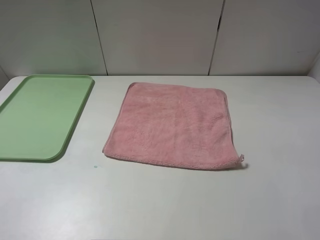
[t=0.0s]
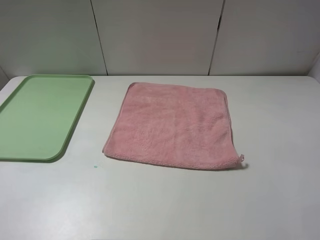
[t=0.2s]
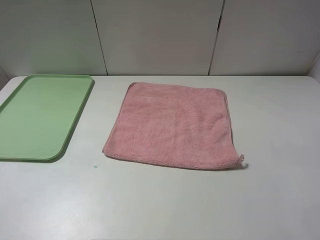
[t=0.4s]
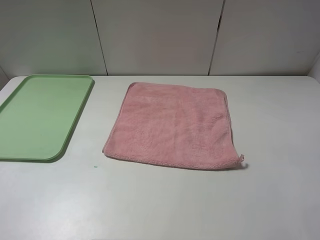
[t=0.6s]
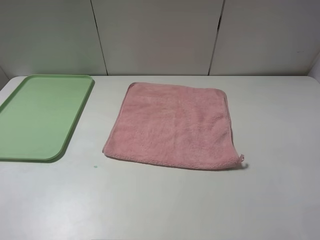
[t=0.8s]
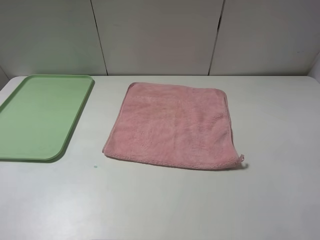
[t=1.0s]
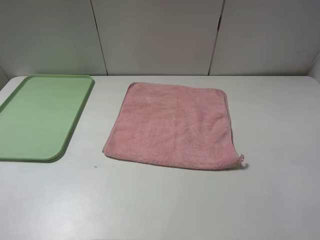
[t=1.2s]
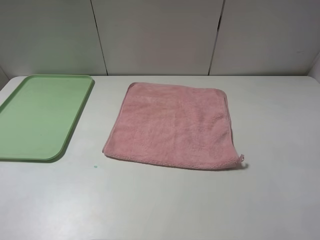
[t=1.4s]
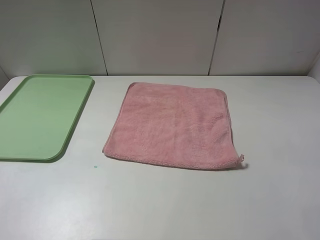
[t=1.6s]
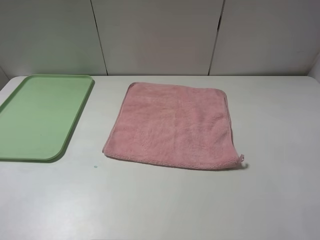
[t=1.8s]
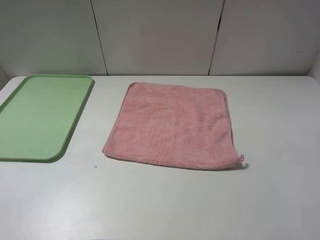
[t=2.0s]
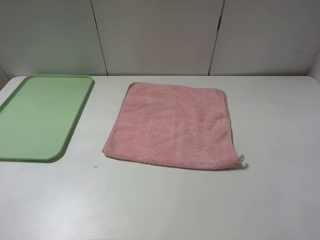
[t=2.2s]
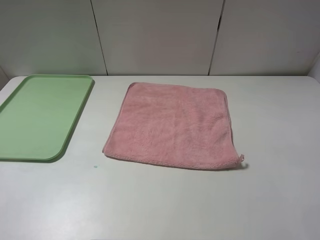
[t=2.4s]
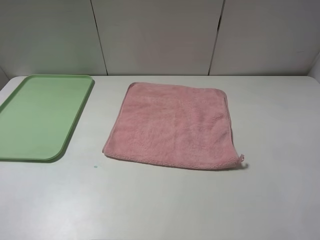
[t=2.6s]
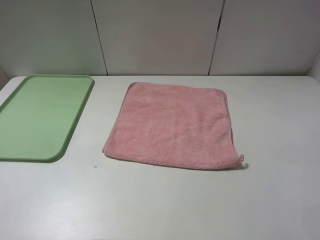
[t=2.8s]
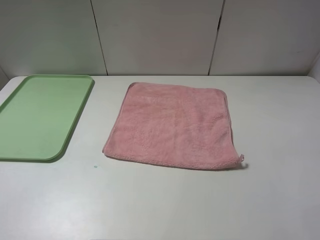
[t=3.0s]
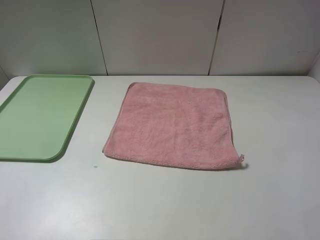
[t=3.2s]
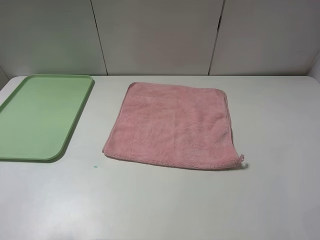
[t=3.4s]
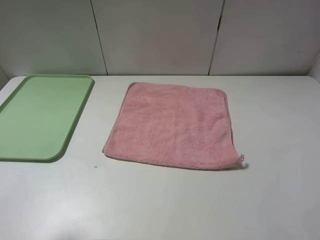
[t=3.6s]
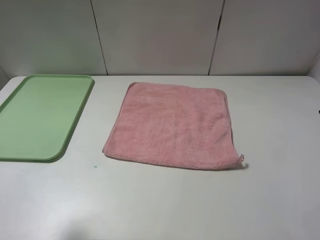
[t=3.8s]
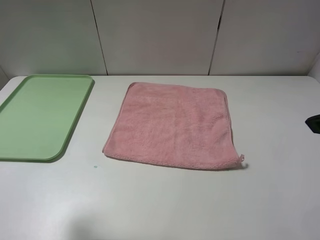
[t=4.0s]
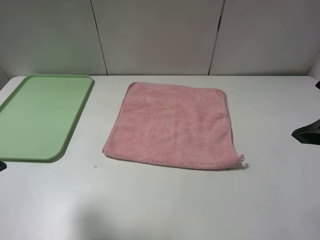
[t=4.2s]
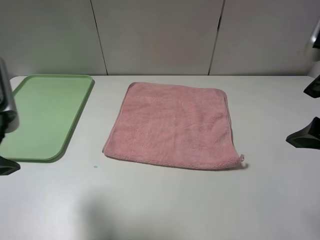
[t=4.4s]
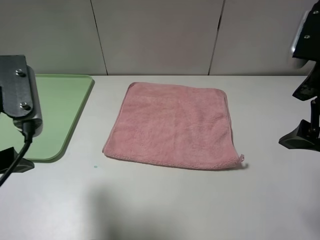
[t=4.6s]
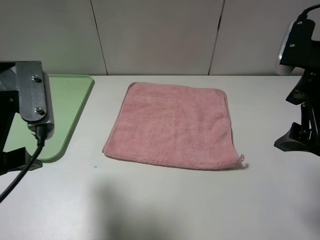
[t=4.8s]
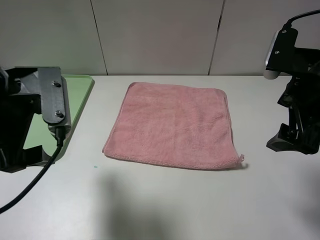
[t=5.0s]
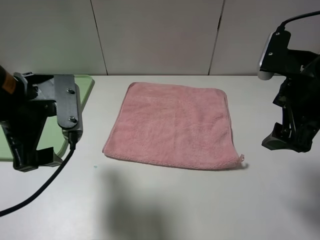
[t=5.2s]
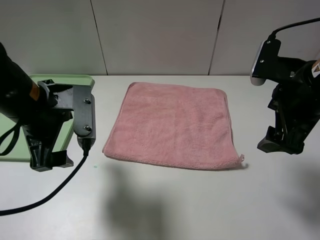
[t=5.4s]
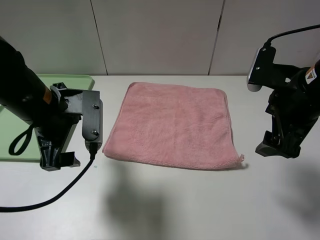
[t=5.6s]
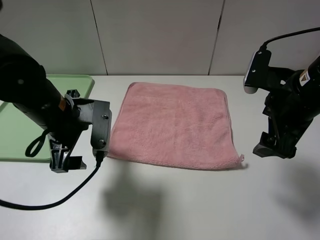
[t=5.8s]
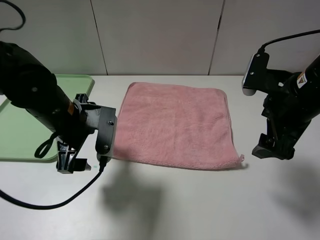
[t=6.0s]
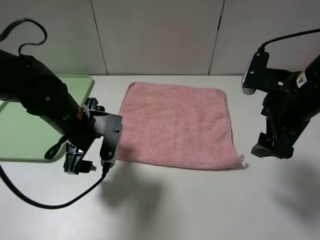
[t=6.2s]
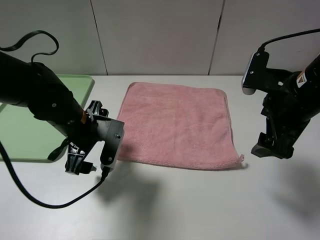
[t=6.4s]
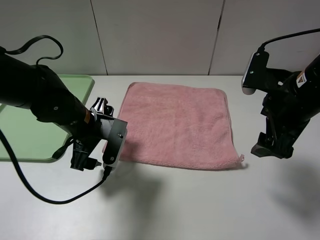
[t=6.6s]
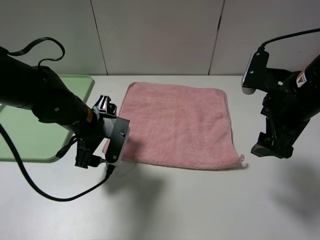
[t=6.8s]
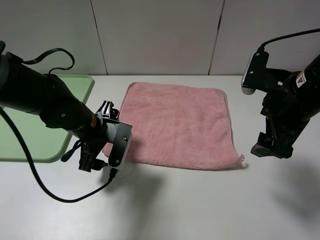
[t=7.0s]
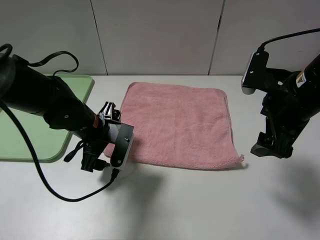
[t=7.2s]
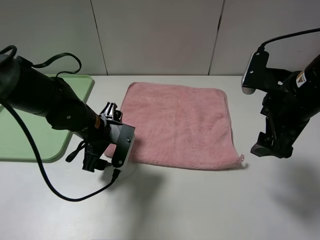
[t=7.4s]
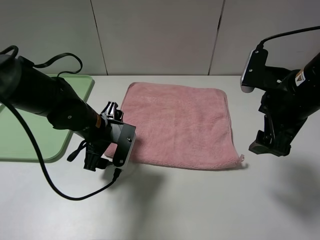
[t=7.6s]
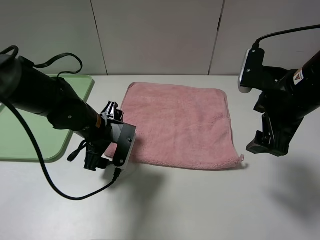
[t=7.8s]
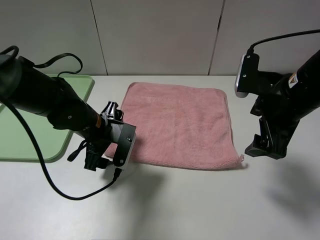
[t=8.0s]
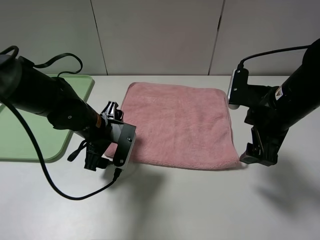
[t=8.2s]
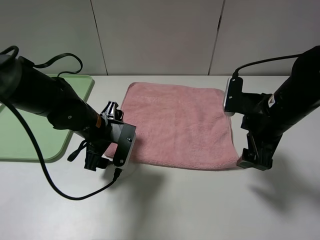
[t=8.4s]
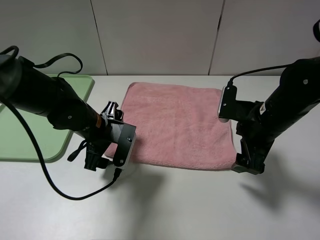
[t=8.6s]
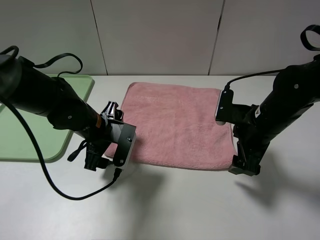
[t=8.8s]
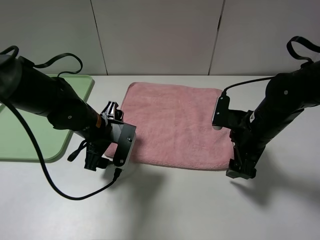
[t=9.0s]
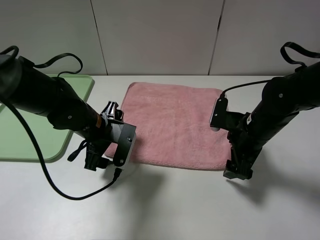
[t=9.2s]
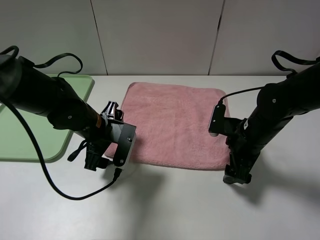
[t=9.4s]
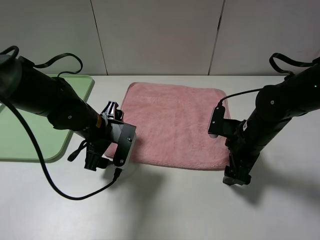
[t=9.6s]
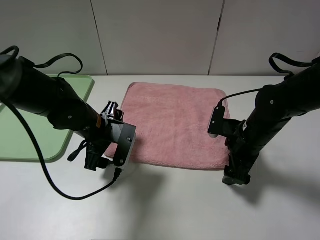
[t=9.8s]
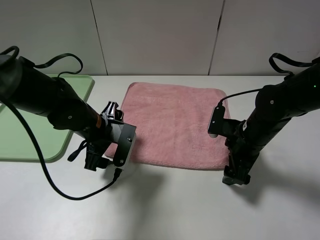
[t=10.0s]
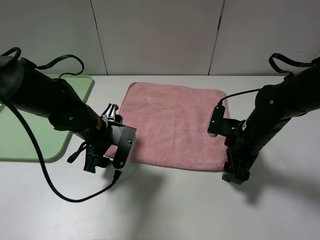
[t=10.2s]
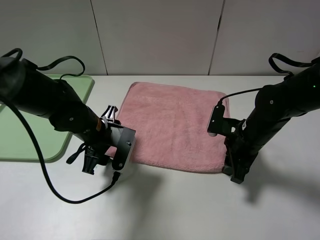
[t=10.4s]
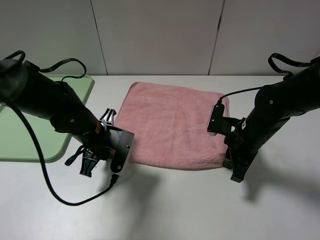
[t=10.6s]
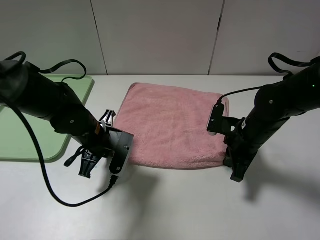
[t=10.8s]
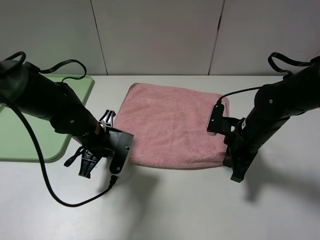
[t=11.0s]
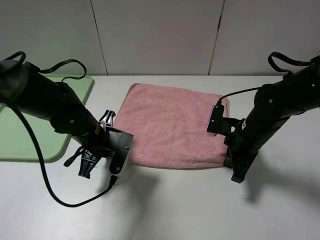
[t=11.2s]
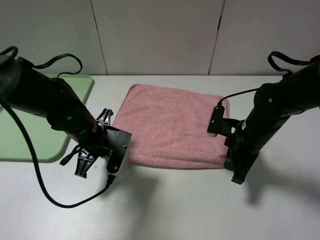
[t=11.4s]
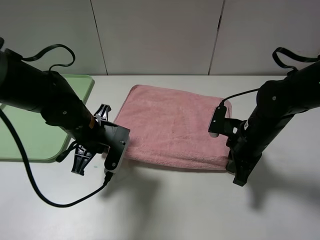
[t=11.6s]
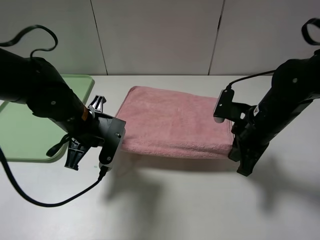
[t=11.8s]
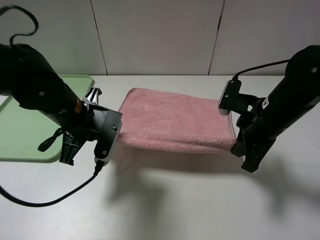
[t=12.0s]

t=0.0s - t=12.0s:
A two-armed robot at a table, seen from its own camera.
t=0.0s - t=1.6s: The two grippers keep their place.
t=3.0s - t=4.4s: The left gripper goes approximately 15 cm forward and to the right. The right gripper heads forward and to the left, covering roughly 15 cm.
t=4.4s - t=6.0s: The left gripper shifts approximately 20 cm downward, forward and to the right; the right gripper shifts roughly 10 cm downward and forward.
t=6.0s - t=7.6s: The left gripper travels downward by some 5 cm.
t=7.6s - t=9.0s: The right gripper shifts some 10 cm downward.
t=9.0s - t=10.4s: The right gripper closes.
t=10.4s - t=12.0s: The grippers both shift upward by some 10 cm. The right gripper closes up. Meanwhile the left gripper closes up.

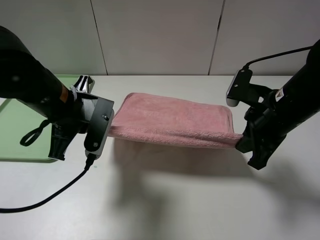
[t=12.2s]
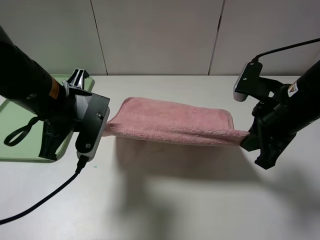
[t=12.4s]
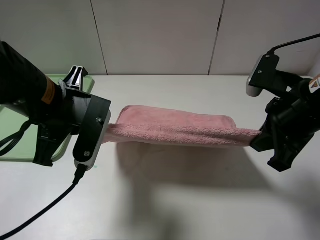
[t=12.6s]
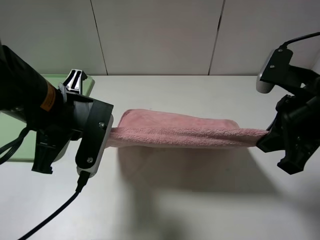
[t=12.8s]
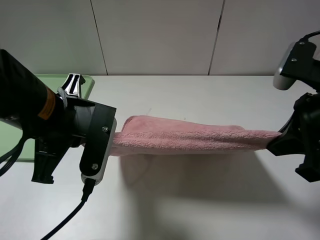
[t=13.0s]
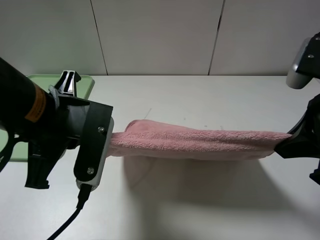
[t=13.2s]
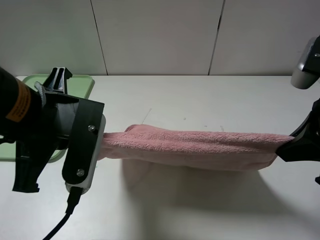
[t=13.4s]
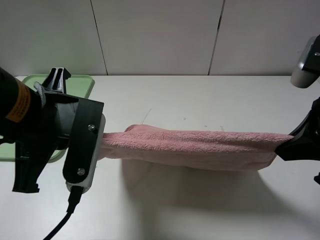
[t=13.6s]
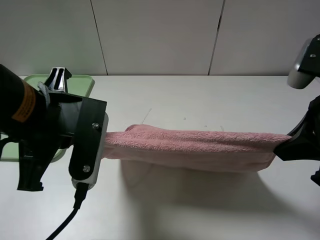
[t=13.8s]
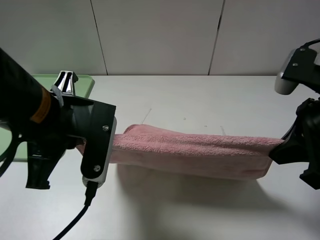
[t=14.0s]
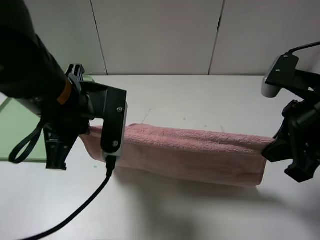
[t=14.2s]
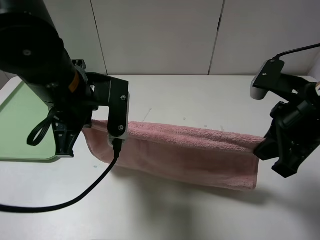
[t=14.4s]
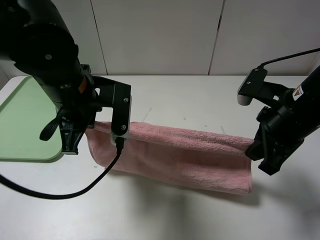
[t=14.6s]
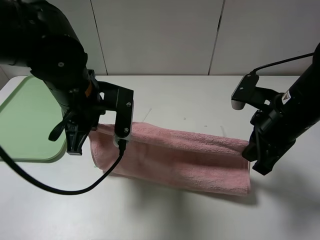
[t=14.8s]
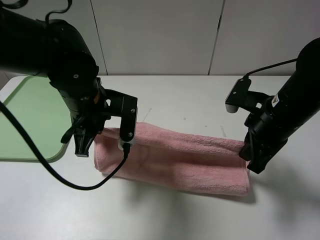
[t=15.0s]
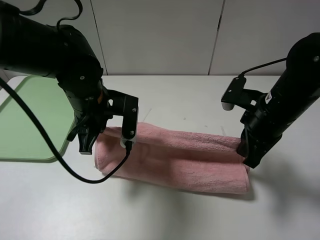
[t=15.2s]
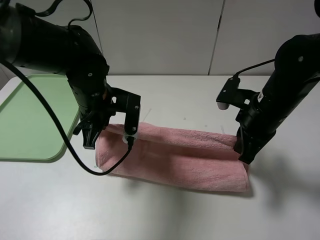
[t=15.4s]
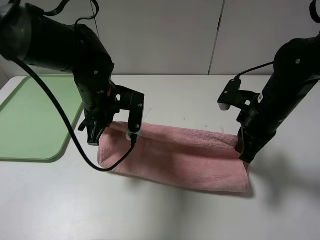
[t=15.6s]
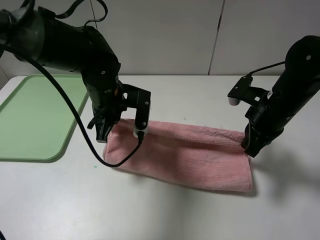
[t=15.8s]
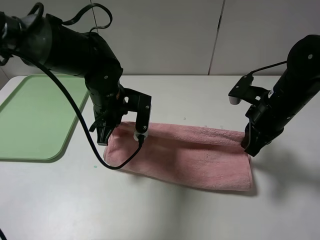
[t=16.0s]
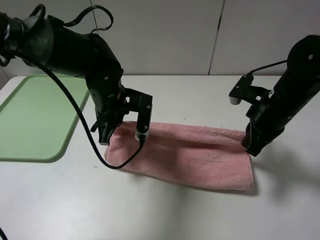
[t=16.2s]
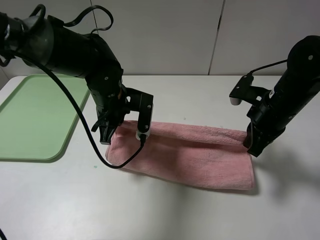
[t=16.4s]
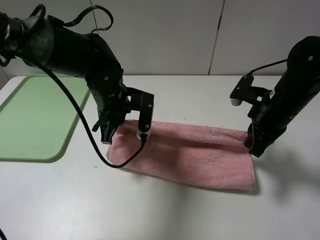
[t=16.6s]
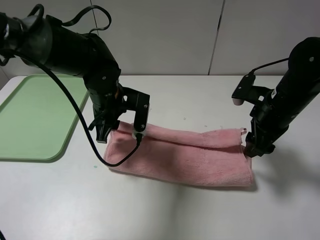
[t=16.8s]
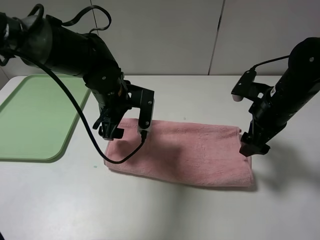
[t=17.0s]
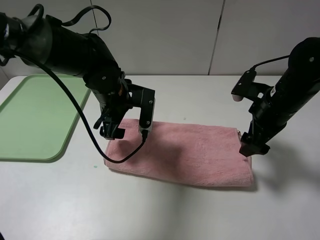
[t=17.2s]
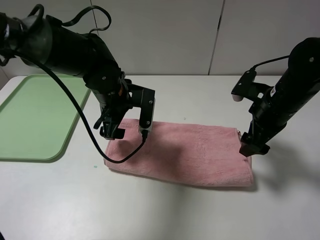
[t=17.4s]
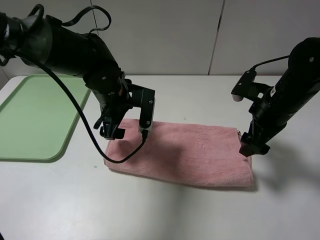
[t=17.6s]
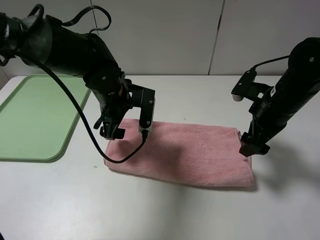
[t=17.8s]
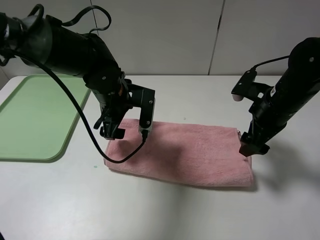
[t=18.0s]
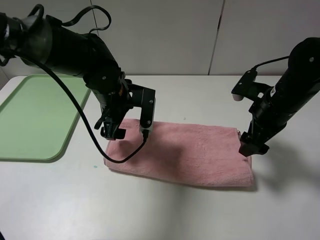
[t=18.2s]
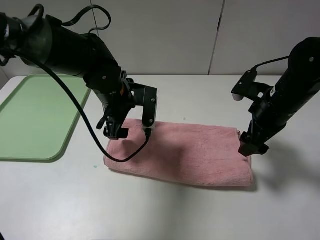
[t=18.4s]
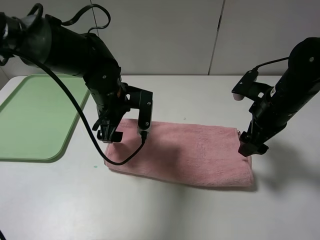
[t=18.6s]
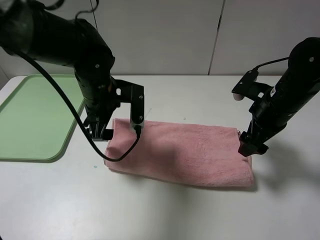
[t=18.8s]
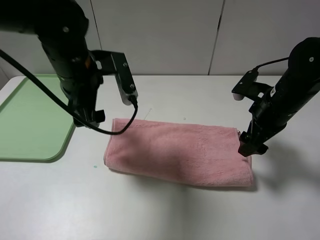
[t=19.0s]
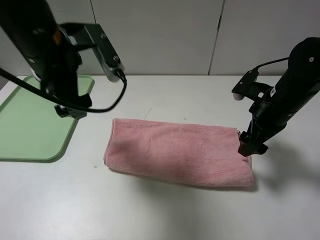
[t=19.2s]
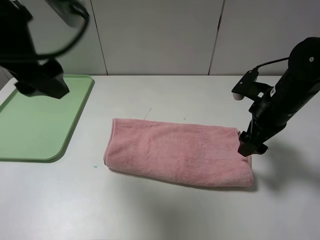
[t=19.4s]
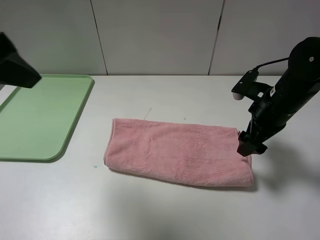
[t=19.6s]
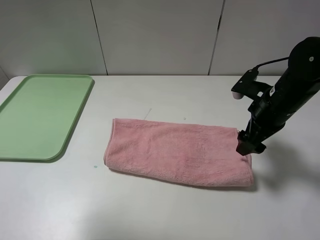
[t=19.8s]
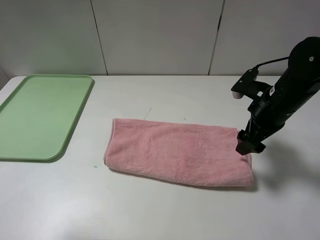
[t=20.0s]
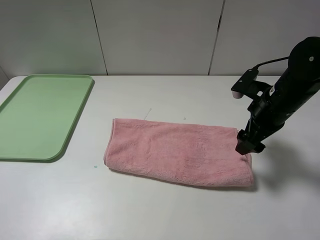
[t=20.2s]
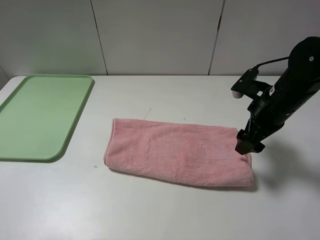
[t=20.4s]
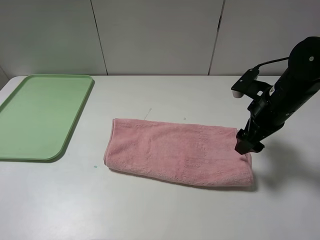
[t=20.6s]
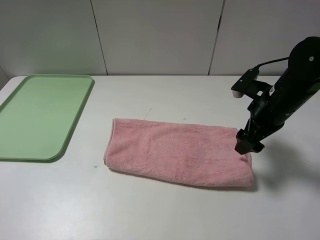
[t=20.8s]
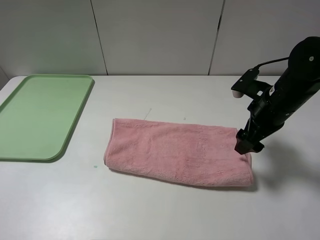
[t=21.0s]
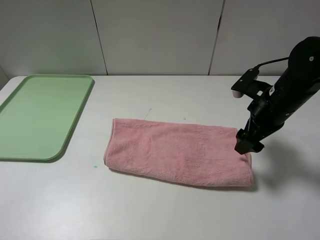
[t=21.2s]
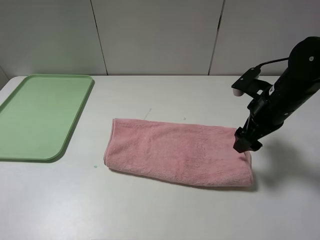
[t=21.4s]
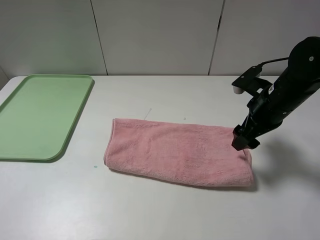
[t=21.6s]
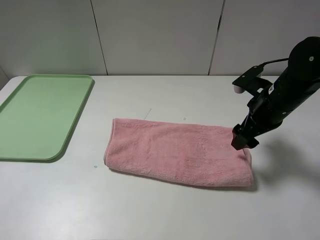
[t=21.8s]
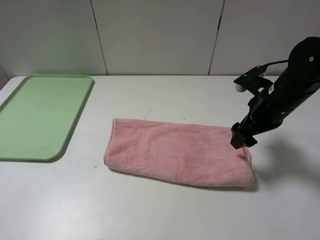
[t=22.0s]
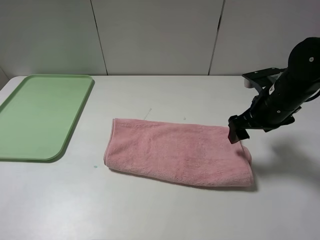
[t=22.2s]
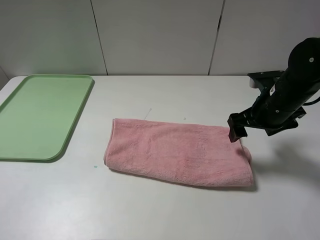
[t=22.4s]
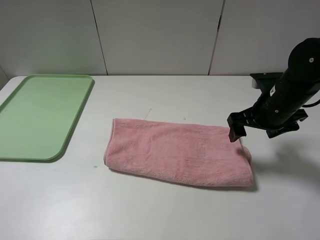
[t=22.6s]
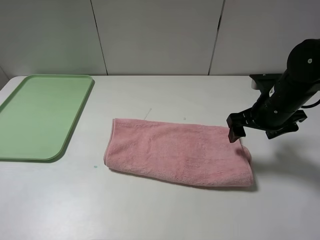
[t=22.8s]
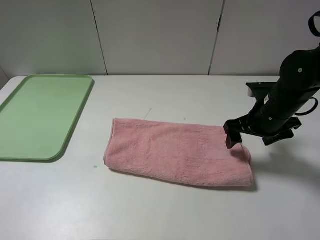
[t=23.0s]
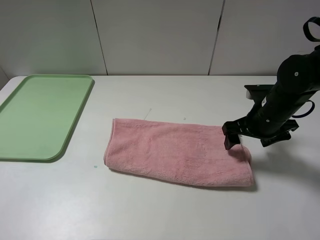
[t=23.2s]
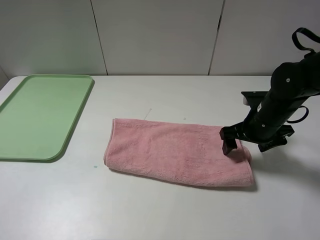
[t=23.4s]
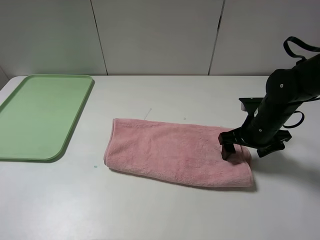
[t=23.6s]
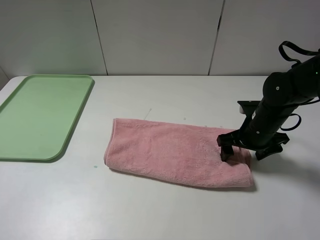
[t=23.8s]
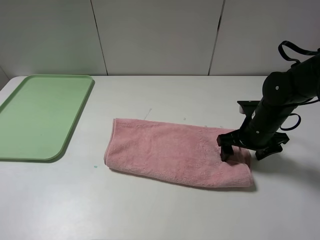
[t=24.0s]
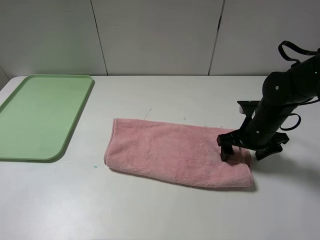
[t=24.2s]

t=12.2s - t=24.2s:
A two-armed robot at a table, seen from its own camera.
Step, t=12.2s - t=17.0s: Fold the pink towel upwards.
t=12.2s - t=13.8s: The right gripper moves upward and backward, about 10 cm. Meanwhile the left gripper is displaced backward and upward by roughly 10 cm.
t=13.8s - t=15.2s: The right gripper moves downward and forward, roughly 15 cm. Meanwhile the left gripper moves forward and downward, approximately 15 cm.
t=15.2s - t=16.6s: The left gripper shifts by about 5 cm.
t=16.6s - t=18.2s: The left gripper opens; the right gripper opens its fingers.
t=18.2s - t=19.8s: The left gripper shifts some 35 cm upward, backward and to the left.
t=19.8s - t=21.2s: The left gripper moves downward, backward and to the left, about 15 cm.
t=22.6s - t=24.2s: The right gripper shifts roughly 5 cm downward.
